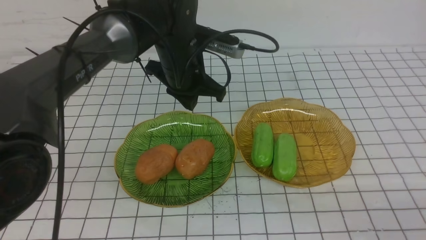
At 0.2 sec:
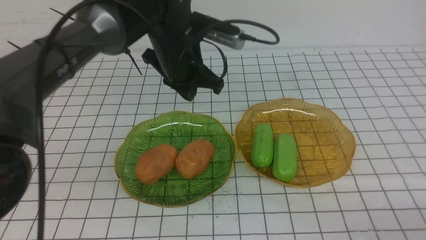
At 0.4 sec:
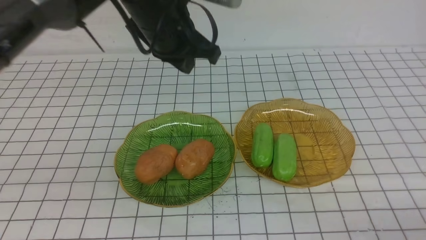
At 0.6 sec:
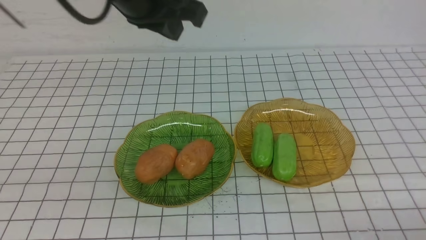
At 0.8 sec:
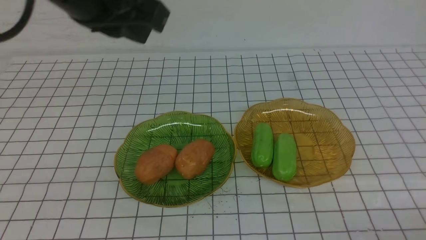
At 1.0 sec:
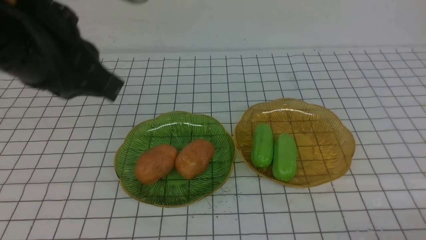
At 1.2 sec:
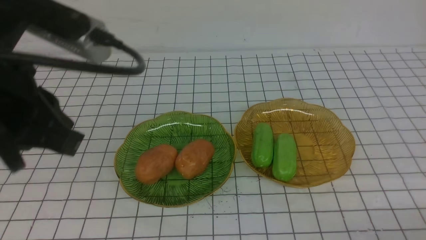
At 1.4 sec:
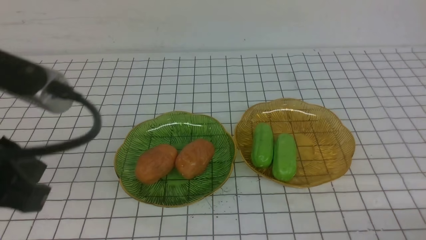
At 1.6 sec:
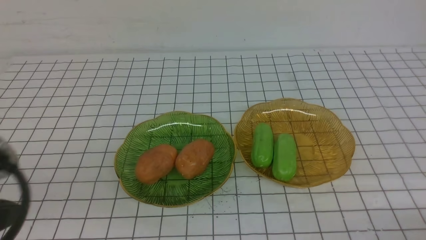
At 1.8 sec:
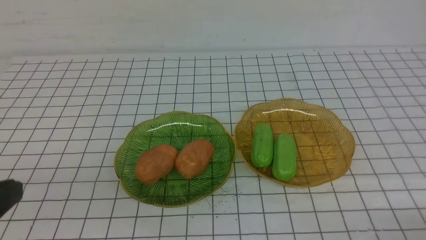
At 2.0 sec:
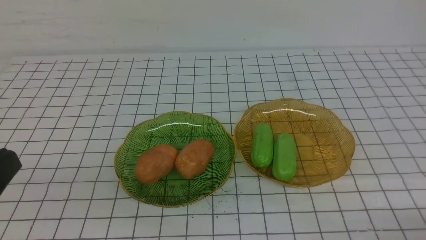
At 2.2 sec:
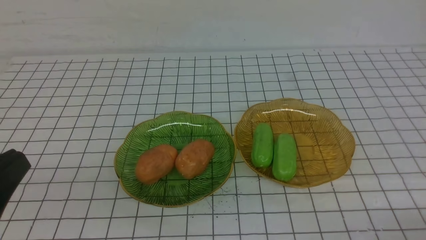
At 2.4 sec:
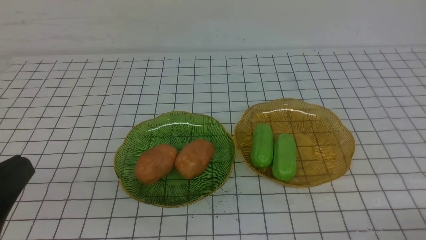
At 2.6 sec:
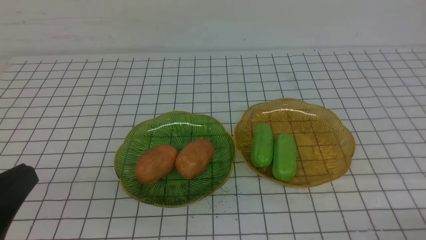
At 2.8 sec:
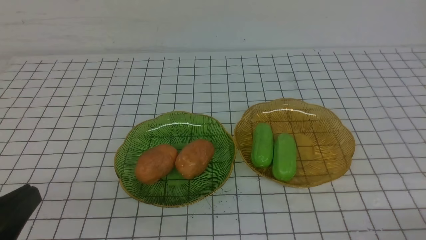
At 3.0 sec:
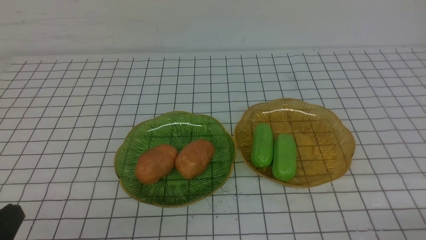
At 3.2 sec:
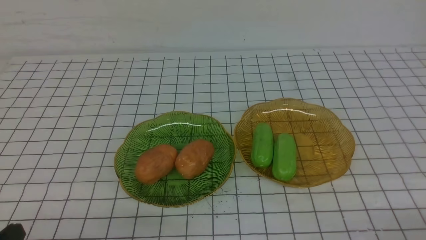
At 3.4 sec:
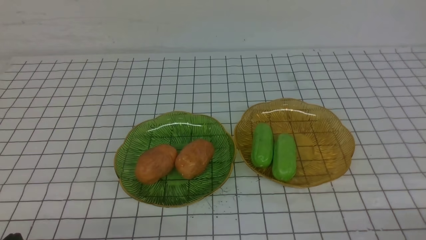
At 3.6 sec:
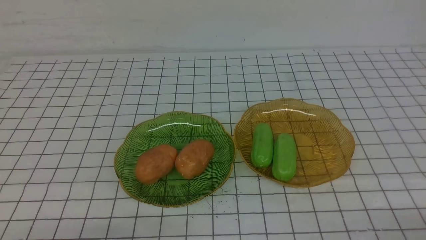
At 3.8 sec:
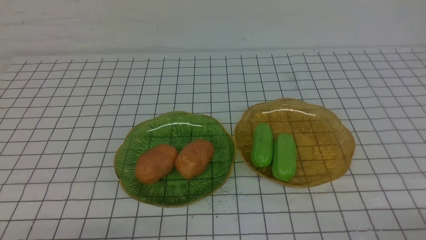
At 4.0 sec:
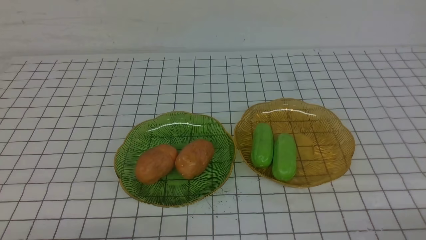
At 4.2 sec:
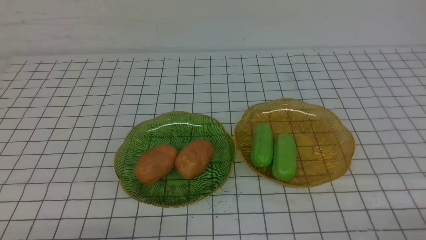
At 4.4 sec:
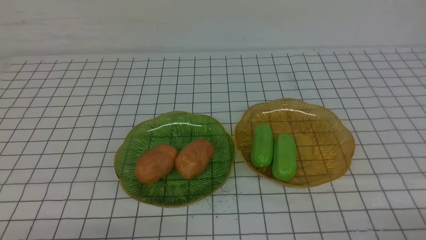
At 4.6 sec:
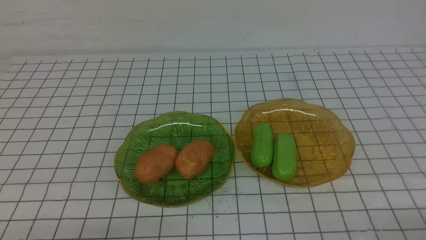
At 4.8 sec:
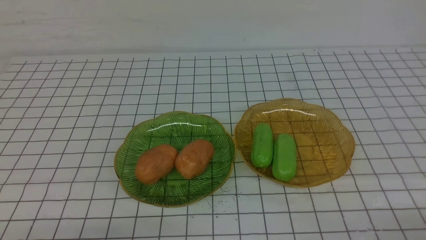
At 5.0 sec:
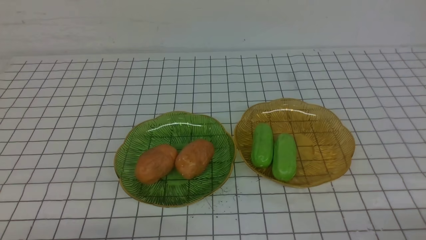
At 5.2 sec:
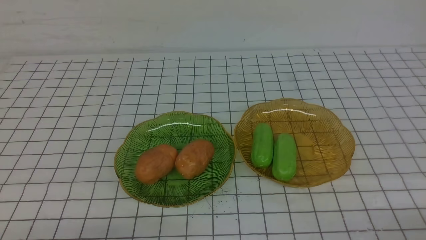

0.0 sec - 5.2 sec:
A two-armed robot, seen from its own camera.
0.0 sec - 1.8 sec: The left gripper shifts about 40 cm backward and to the left.
1.8 sec - 3.4 sec: The left gripper heads downward, covering about 15 cm.
3.4 sec - 5.2 sec: Both grippers stay put.
